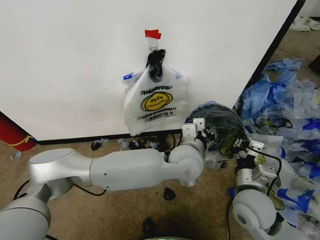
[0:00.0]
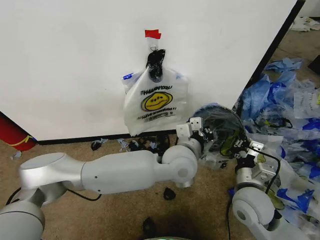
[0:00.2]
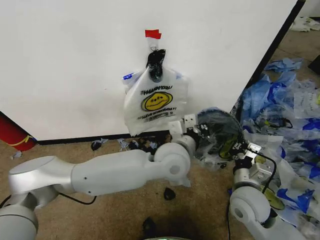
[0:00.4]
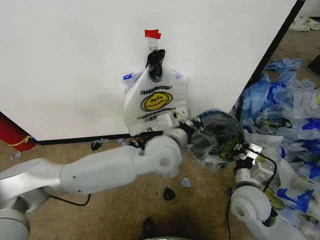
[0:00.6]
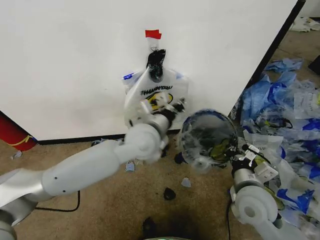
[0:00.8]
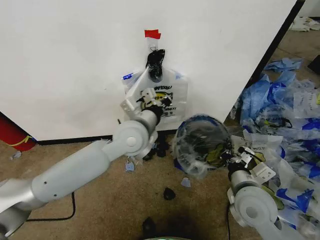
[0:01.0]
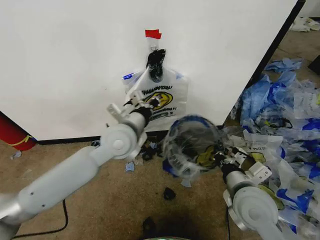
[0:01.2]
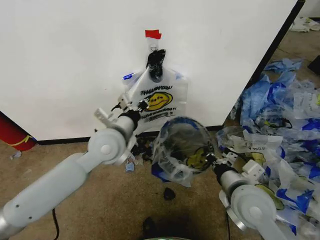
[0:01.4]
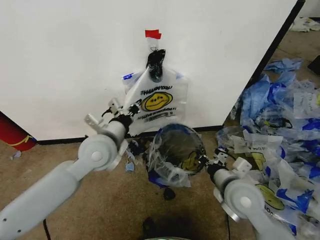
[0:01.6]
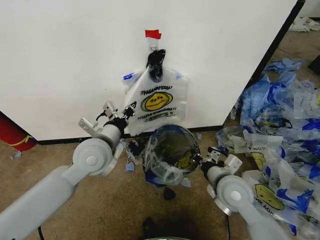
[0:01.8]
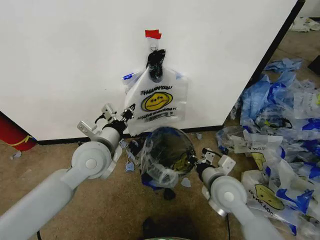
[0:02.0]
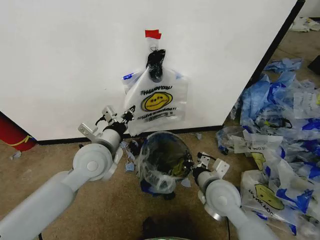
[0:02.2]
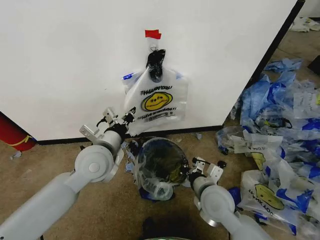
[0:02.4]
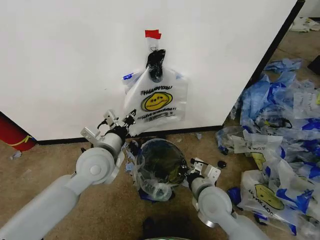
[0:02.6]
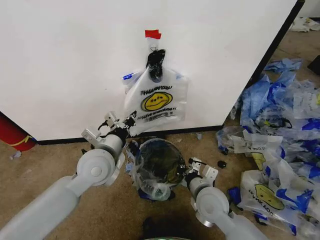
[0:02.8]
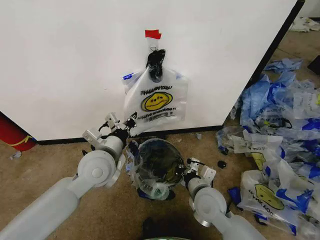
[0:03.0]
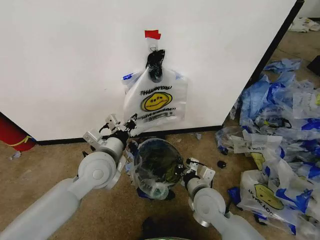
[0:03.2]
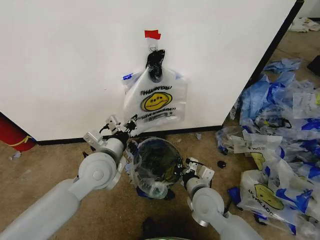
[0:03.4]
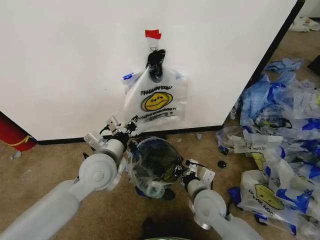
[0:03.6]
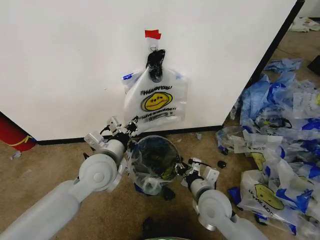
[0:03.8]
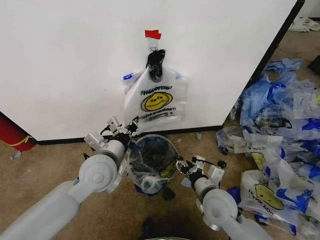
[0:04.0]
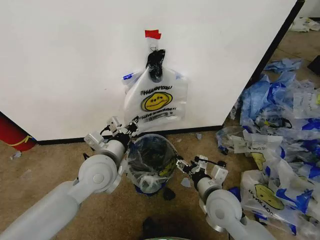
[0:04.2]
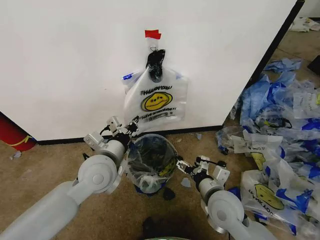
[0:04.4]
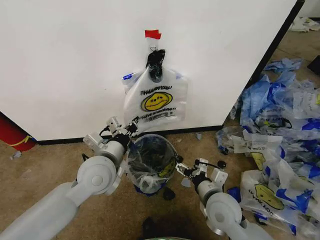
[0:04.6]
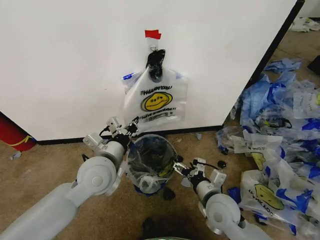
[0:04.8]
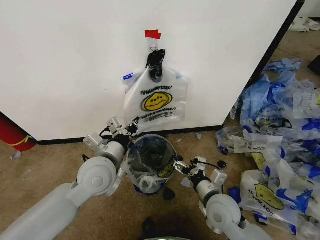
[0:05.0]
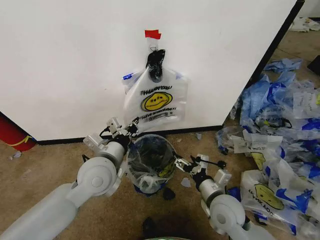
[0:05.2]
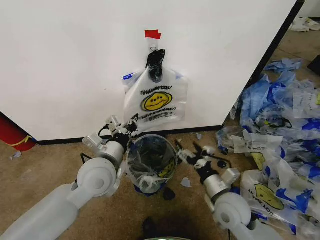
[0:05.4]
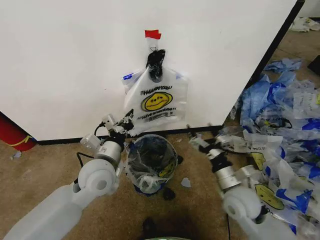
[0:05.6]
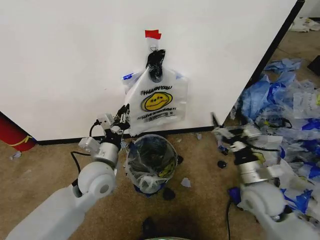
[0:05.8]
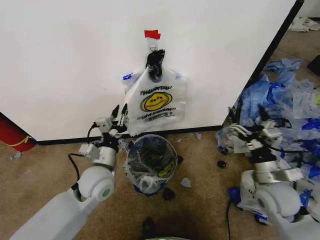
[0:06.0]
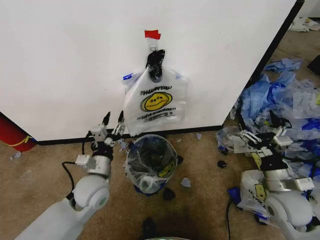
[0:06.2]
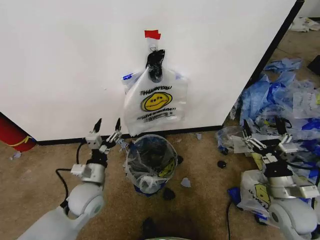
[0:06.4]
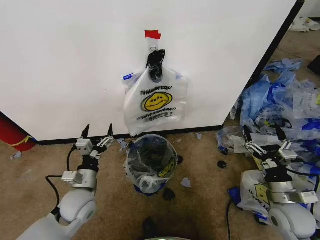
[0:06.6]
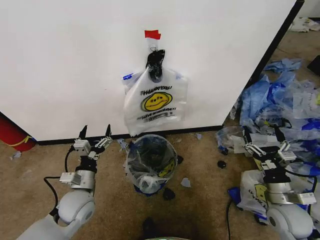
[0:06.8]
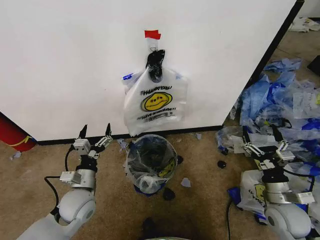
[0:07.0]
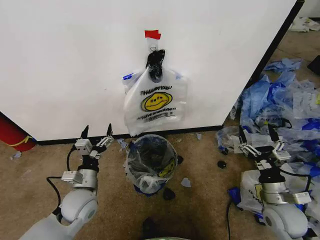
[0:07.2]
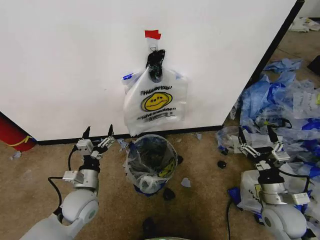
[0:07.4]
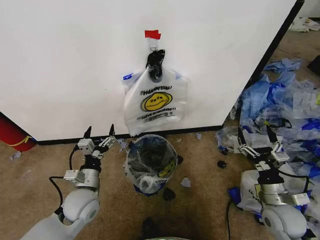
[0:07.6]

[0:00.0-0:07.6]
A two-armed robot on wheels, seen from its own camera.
Task of the whole recording: Pick up the garbage bag from the wall and place it over the trash bin.
0:00.0 to 0:01.6: The left gripper travels to the left by some 25 cm.
0:01.6 to 0:03.0: The right gripper moves downward and to the left, approximately 10 cm.
0:03.0 to 0:04.6: The right gripper opens.
0:04.6 to 0:06.0: The right gripper is displaced to the right by roughly 15 cm; the left gripper travels downward by roughly 5 cm, and opens.
0:06.0 to 0:07.6: The left gripper travels downward and to the left by approximately 10 cm, and opens its fingers. Meanwhile the right gripper shifts roughly 5 cm downward.

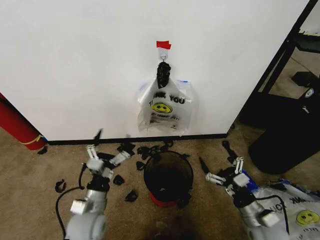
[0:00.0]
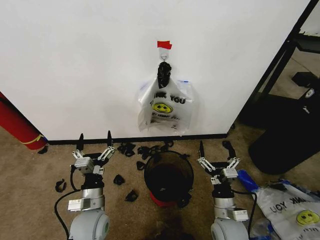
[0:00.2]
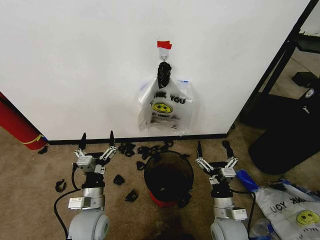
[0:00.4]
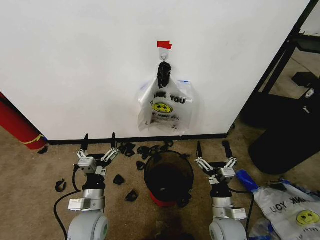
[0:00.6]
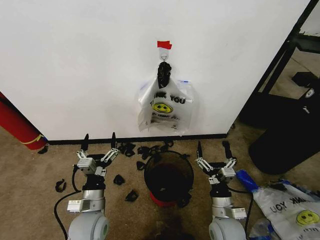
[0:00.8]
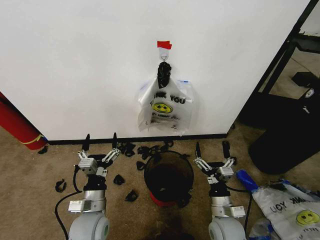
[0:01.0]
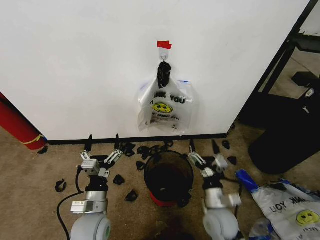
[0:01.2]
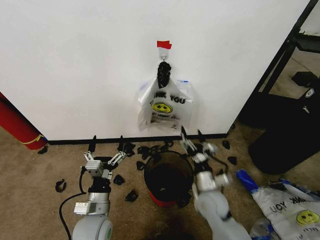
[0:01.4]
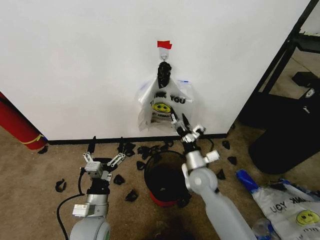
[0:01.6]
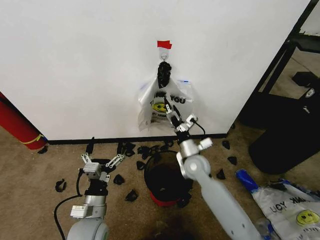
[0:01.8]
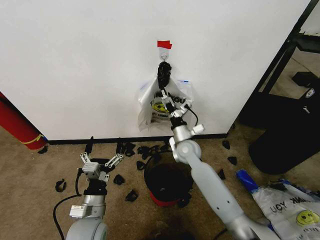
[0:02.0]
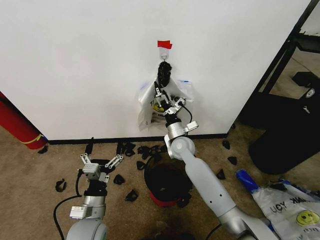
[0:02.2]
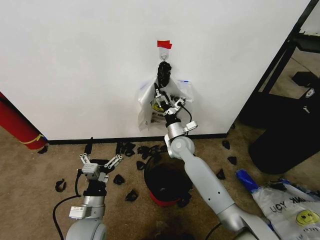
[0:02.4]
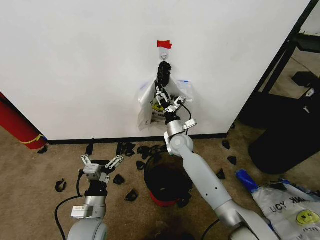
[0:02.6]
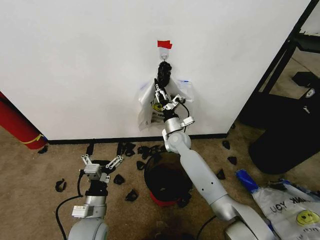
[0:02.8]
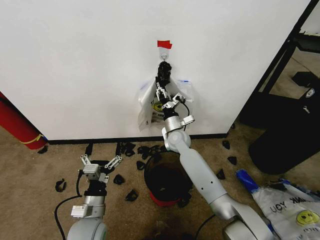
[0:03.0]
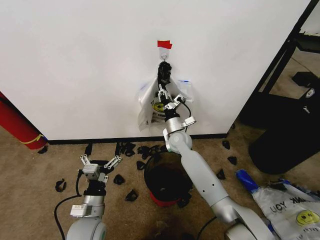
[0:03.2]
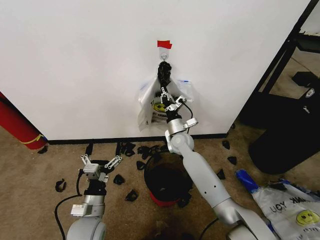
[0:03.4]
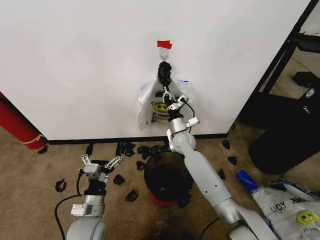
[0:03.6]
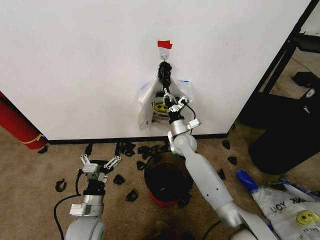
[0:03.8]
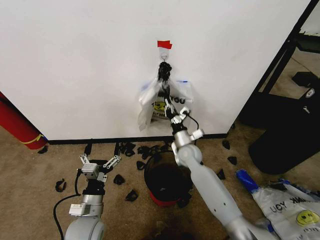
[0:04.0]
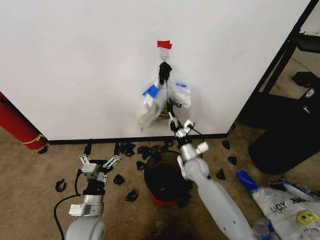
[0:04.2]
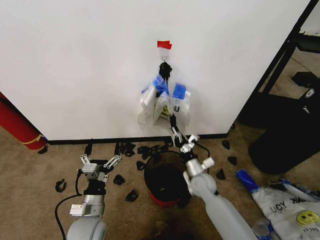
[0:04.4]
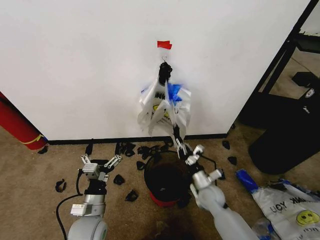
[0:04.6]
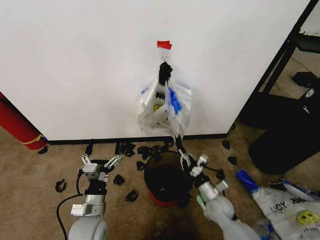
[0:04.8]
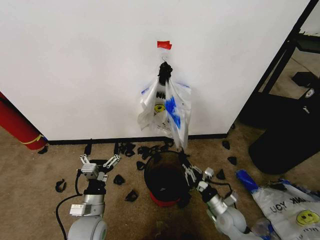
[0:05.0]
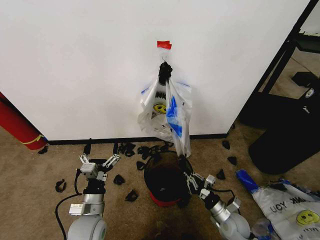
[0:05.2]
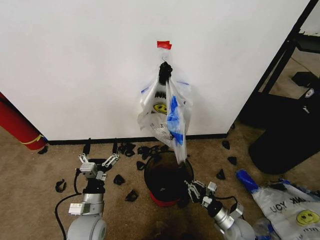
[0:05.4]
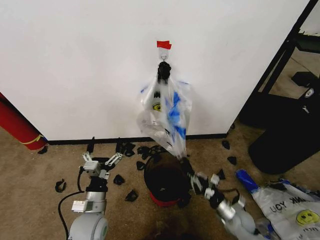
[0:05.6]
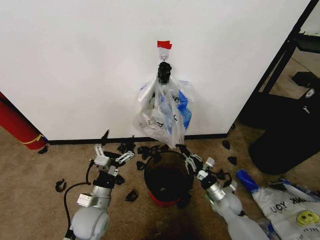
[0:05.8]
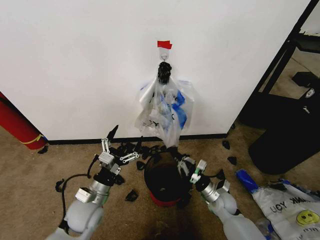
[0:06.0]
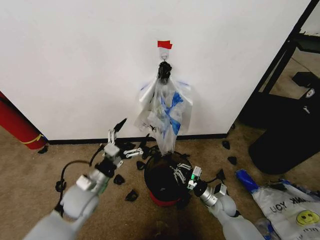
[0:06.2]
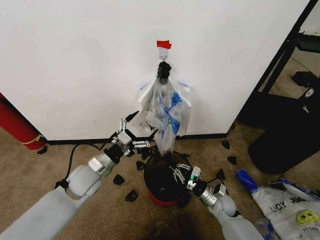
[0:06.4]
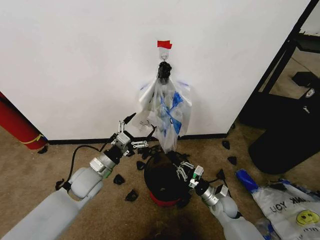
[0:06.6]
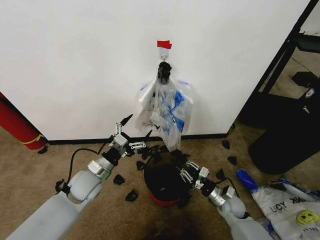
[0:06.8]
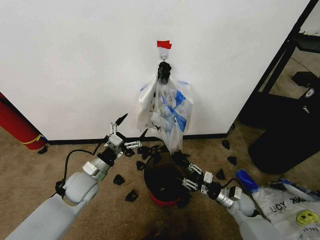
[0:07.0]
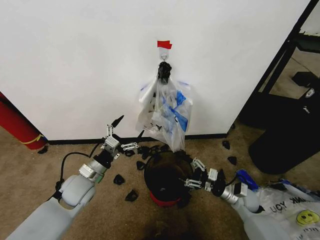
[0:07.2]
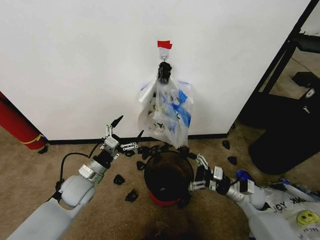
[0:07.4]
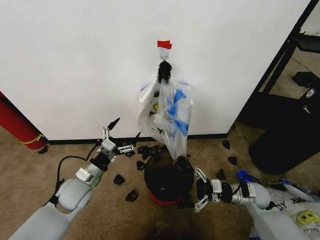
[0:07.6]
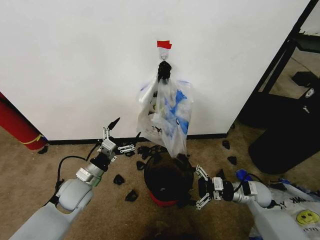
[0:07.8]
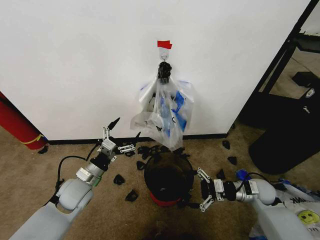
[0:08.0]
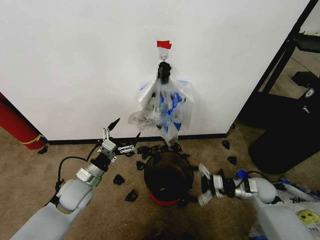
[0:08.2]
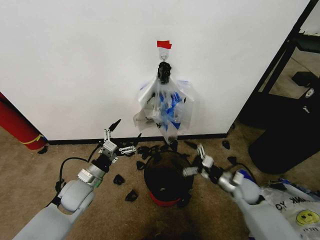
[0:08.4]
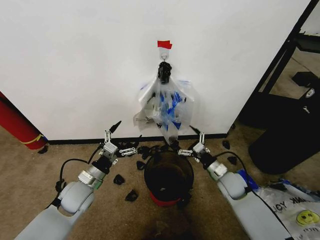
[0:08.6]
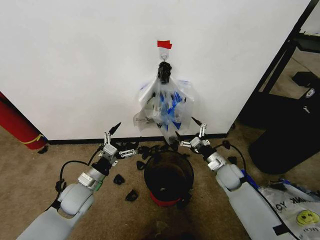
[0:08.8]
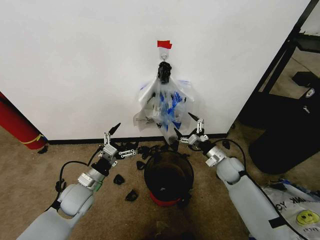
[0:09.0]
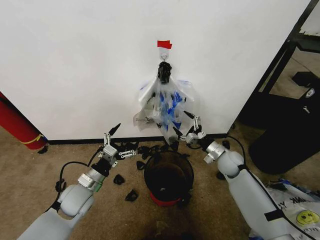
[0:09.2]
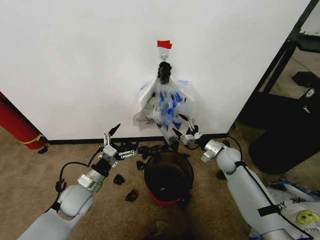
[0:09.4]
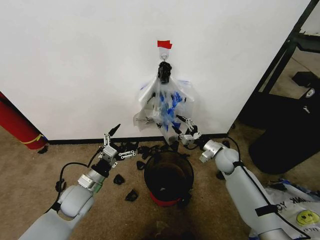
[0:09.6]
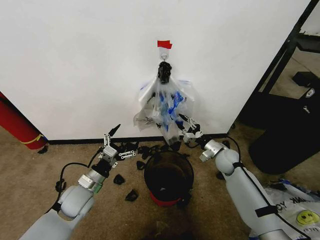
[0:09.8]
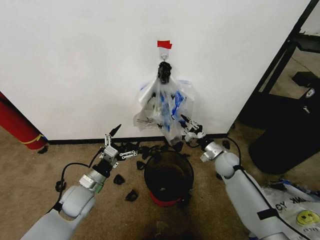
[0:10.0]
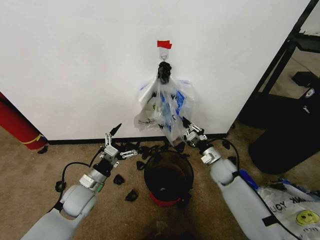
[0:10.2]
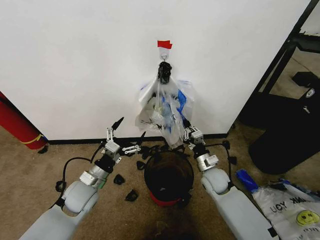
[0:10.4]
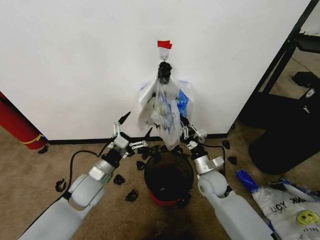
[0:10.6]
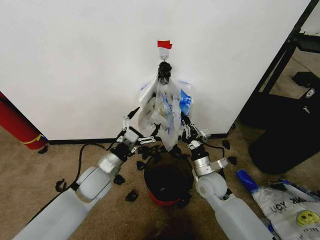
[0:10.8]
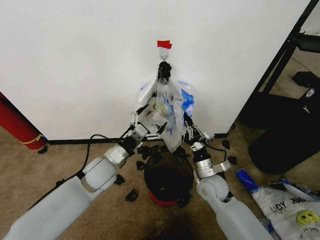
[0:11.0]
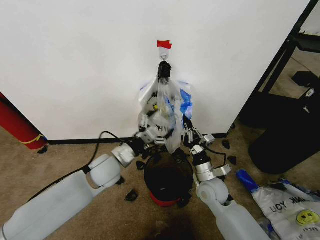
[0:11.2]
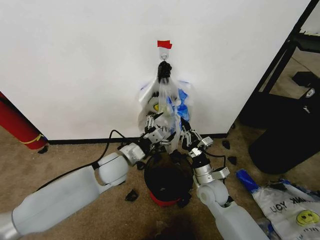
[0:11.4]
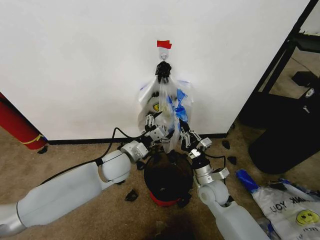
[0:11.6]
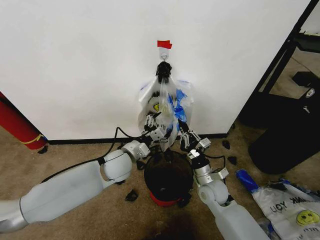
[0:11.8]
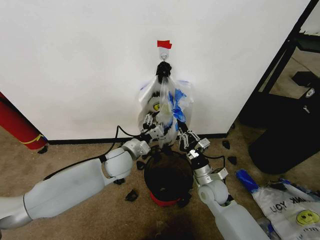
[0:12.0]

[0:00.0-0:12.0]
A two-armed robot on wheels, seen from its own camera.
Task of the whole recording: Pick up the garbage bag from the wall and place it over the trash bin.
0:01.6 to 0:03.0: The right gripper travels forward and to the left by roughly 20 cm, and closes.
0:03.0 to 0:04.4: The right gripper moves backward, downward and to the right, approximately 20 cm, and closes up.
0:04.4 to 0:06.0: The right gripper travels to the right and downward by approximately 10 cm.
0:06.0 to 0:07.6: The right gripper travels to the right and upward by about 10 cm, and opens; the left gripper shifts about 5 cm forward.
0:07.6 to 0:09.0: The right gripper goes approximately 10 cm forward and to the left.
0:09.0 to 0:10.4: The right gripper moves to the left, roughly 5 cm, and closes up.
0:10.4 to 0:12.0: The left gripper shifts some 15 cm to the right, forward and upward. Meanwhile the right gripper is displaced backward by approximately 5 cm.

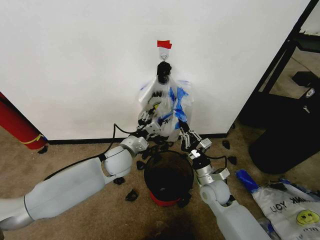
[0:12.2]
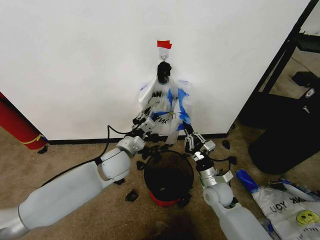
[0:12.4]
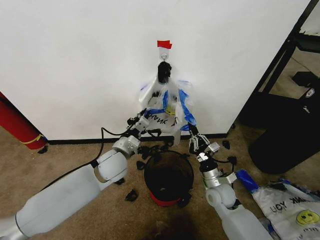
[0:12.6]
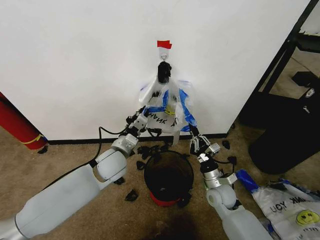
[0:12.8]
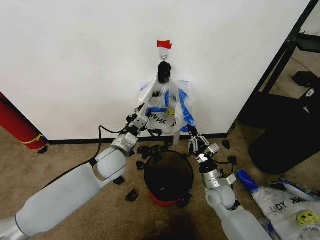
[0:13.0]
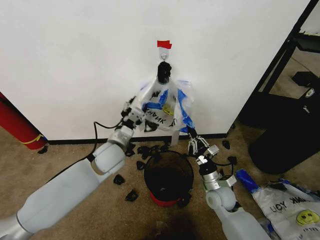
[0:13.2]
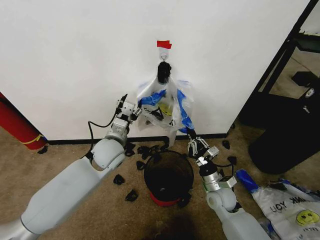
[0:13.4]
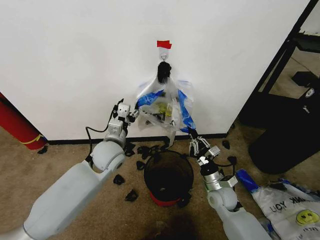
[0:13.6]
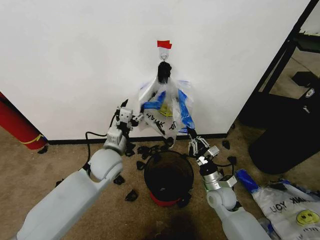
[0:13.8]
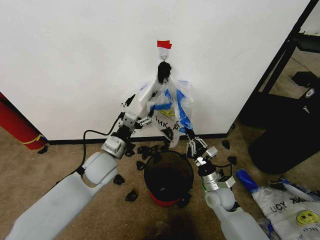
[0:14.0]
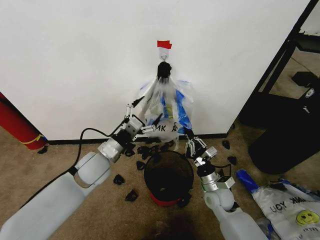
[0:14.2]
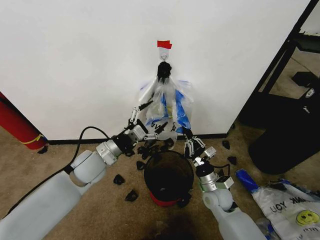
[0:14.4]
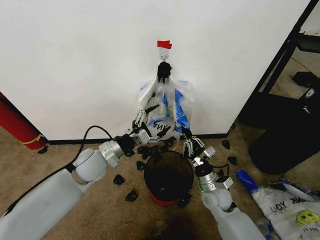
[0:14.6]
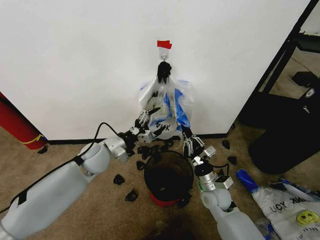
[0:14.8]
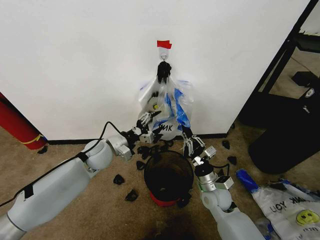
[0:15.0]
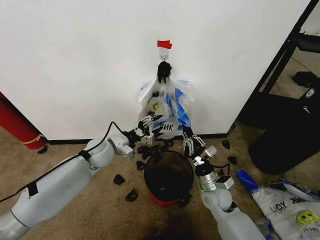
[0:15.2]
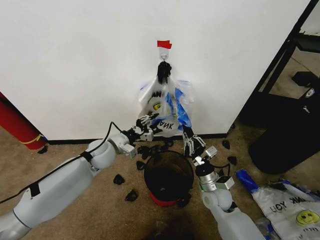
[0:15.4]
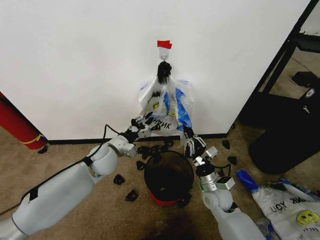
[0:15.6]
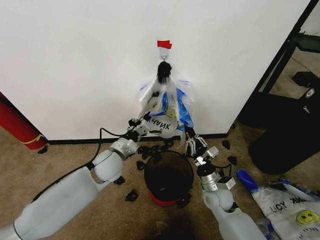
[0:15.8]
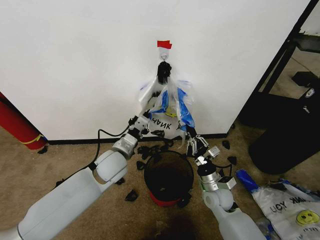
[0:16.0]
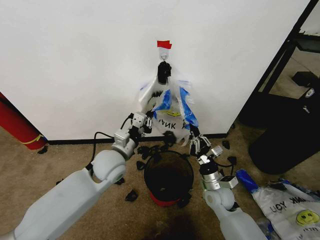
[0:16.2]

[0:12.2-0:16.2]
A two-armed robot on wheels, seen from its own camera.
Task of the whole recording: Pick up the garbage bag from the wall and place it over the trash bin.
0:12.2 to 0:13.6: The left gripper closes, then reopens.
0:13.6 to 0:14.8: The left gripper moves approximately 5 cm.
0:14.8 to 0:16.2: The left gripper heads to the right, covering about 5 cm, and closes.
